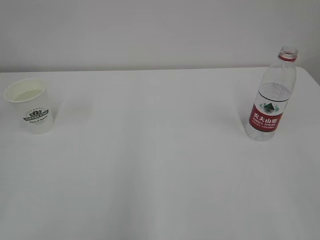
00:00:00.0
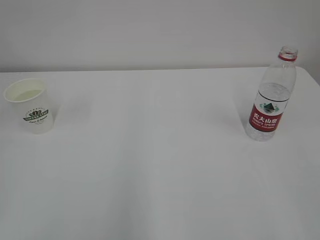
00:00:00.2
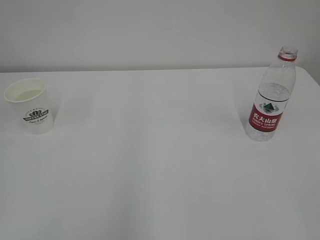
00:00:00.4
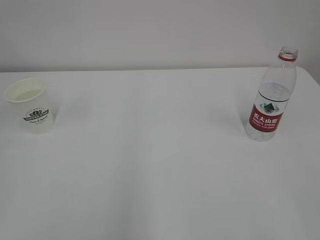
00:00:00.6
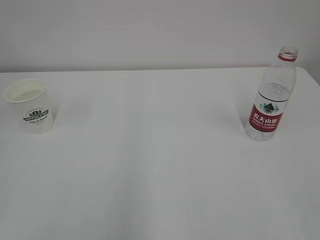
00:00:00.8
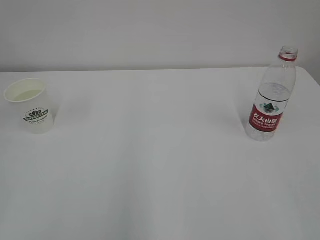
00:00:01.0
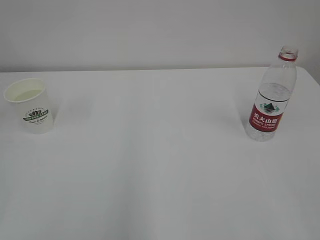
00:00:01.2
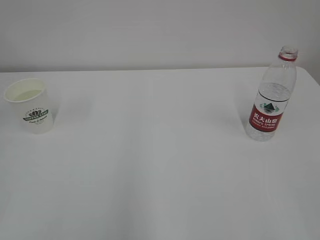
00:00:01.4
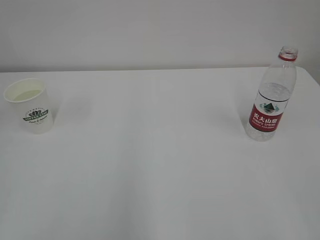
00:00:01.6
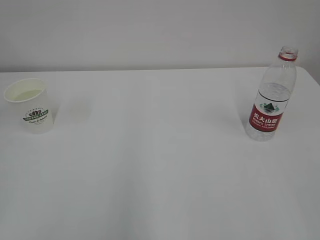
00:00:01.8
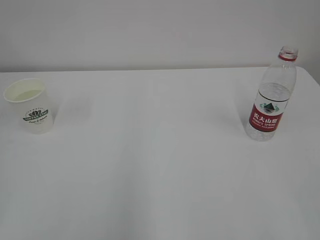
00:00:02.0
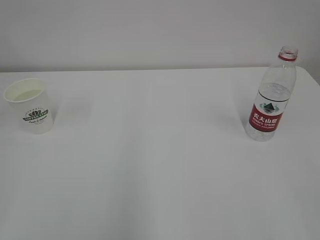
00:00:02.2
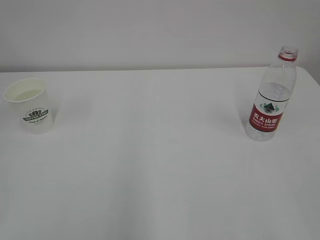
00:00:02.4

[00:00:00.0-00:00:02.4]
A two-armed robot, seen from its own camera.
00:00:01.2 to 00:00:02.4: Both grippers stay about where they are.
